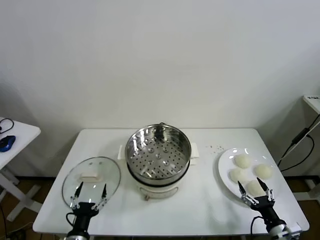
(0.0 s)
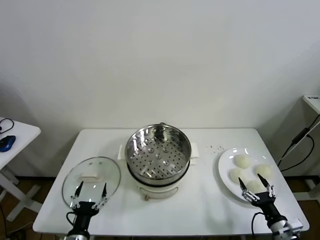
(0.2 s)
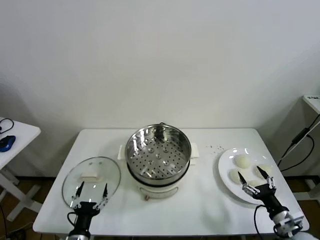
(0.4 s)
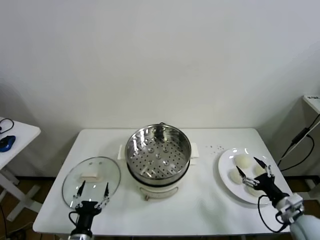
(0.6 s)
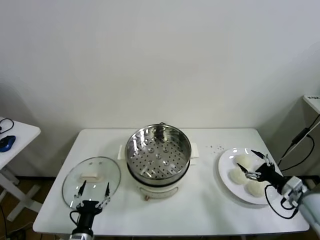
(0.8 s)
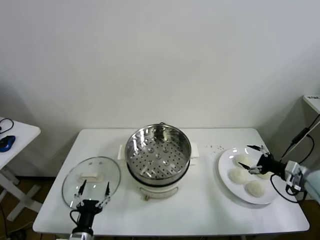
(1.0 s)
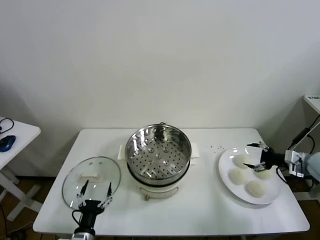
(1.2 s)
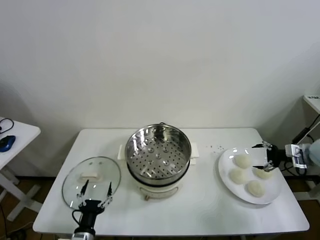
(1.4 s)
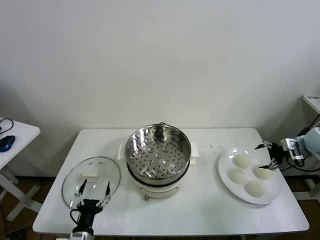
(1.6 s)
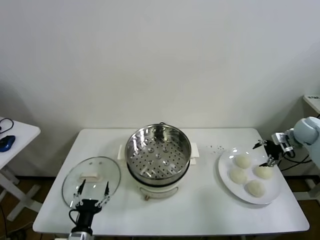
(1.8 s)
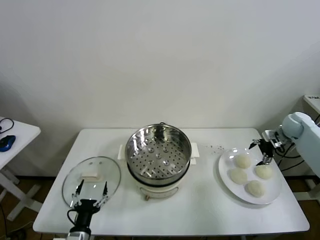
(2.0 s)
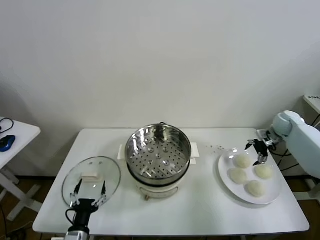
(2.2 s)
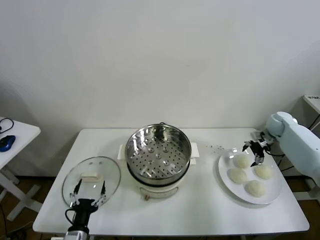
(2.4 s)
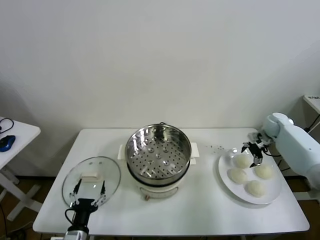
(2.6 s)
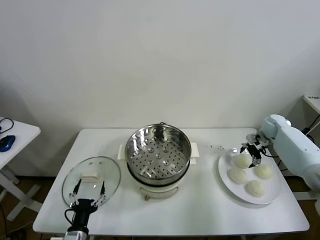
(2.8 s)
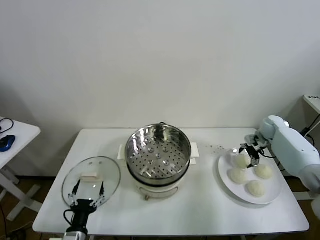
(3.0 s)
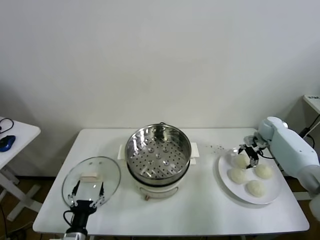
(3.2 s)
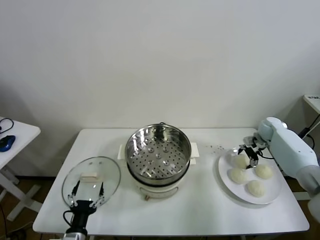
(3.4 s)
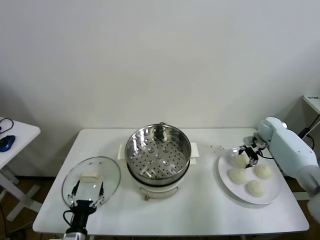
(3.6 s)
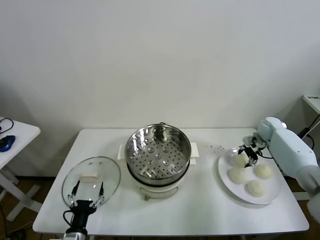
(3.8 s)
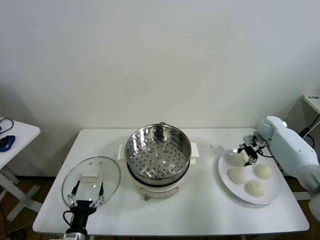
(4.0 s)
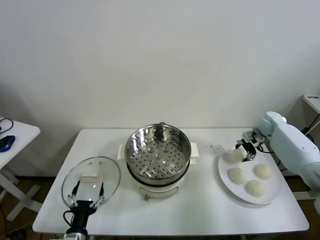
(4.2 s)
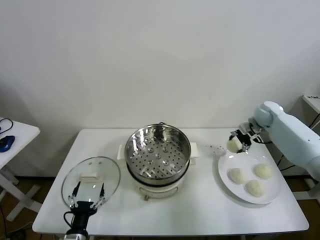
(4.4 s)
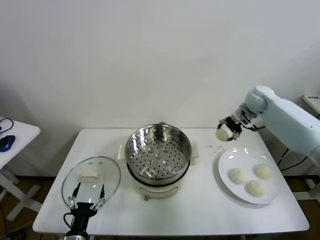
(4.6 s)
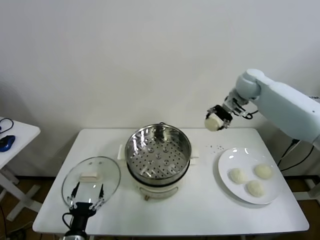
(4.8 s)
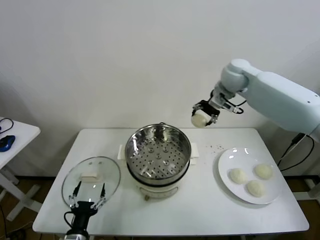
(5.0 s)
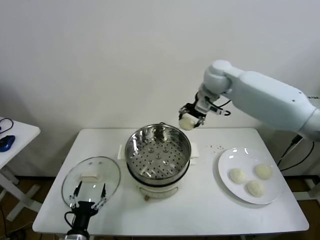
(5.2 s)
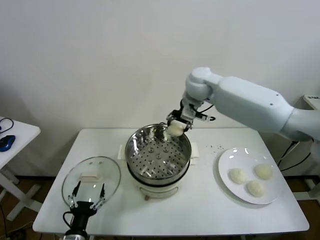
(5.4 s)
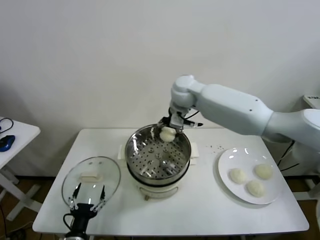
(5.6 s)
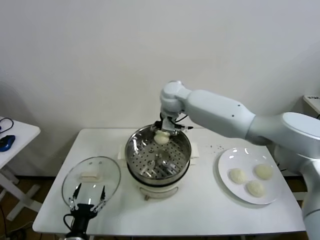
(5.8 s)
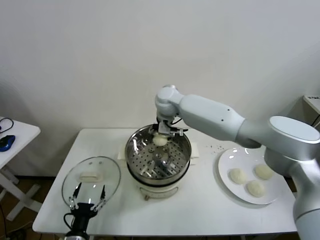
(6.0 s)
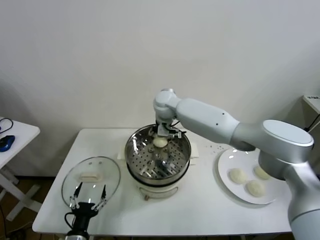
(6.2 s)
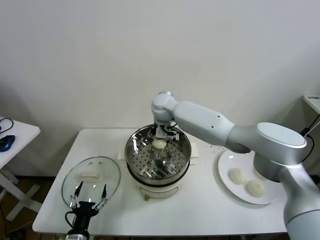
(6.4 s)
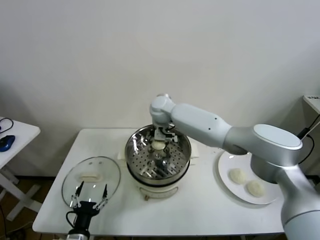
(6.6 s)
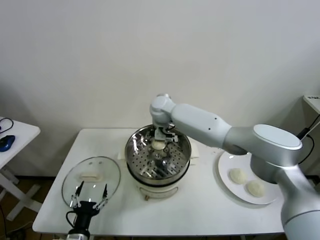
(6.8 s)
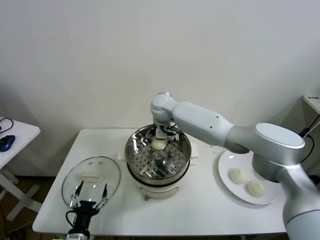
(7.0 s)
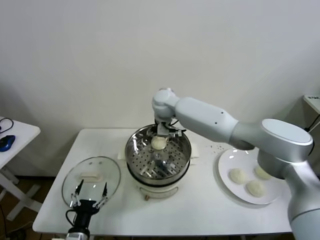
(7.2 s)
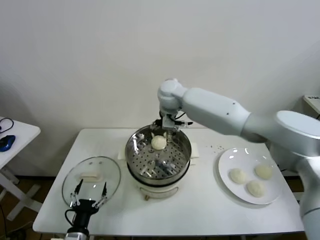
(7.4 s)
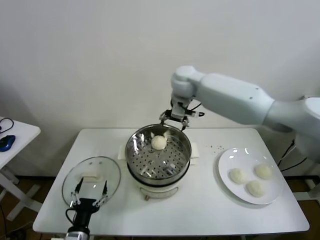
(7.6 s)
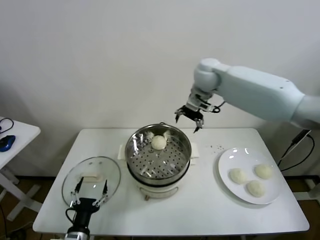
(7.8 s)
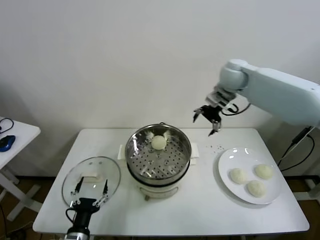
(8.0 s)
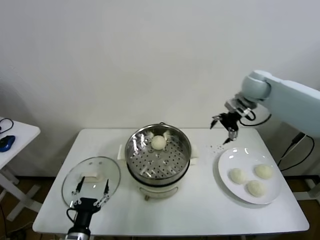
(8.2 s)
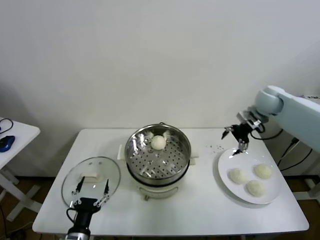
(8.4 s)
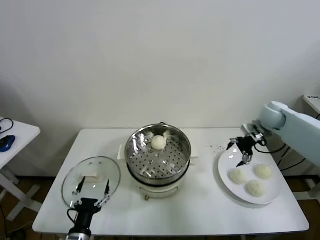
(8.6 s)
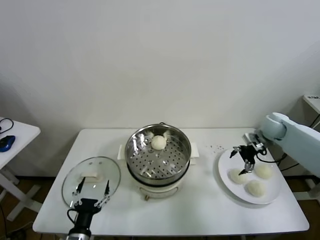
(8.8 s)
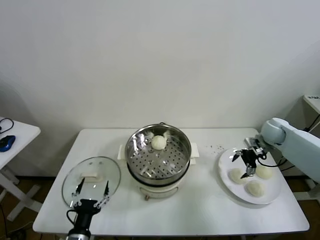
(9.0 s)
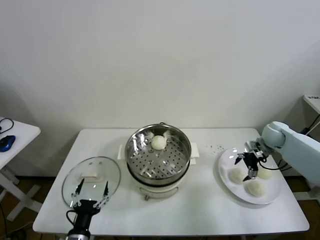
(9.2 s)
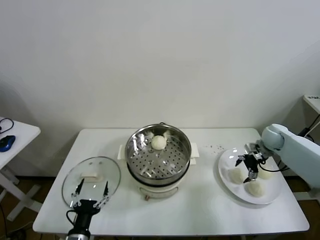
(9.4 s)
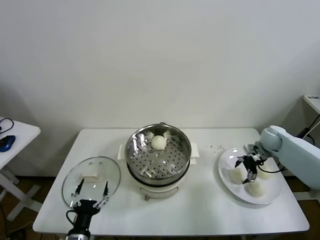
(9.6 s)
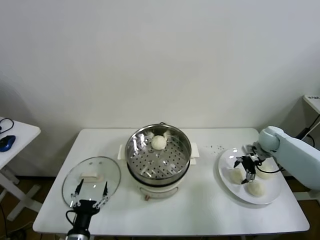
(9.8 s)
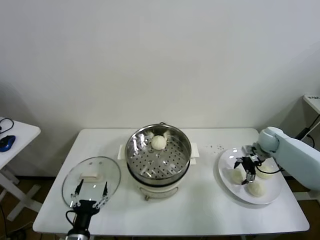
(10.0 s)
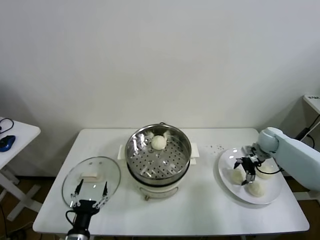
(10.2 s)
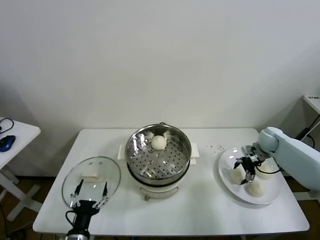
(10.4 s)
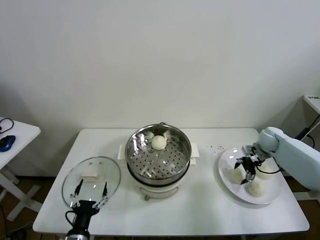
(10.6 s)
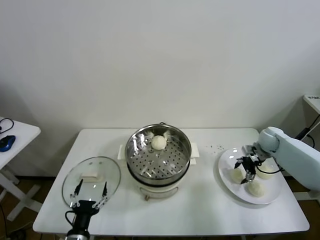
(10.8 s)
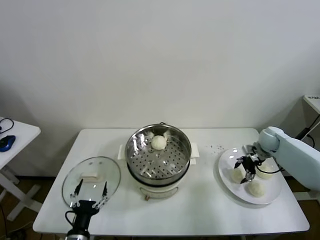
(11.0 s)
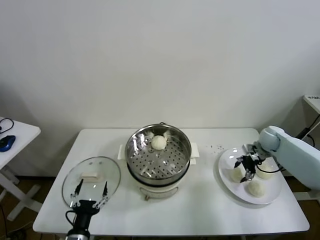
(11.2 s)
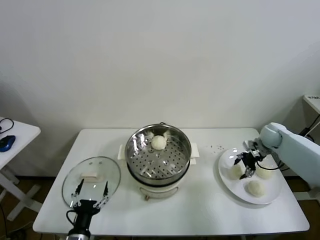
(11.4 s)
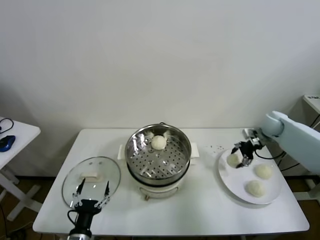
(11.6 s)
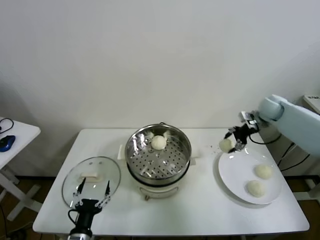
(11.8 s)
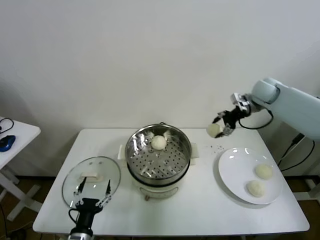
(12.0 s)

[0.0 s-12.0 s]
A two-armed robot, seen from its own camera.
Task of the whole recording: take steamed baozi put them in steamer.
Step, 0.0 to 3.6 s: Grasp the baozi in the plate with right gripper.
Step, 3.8 to 7.2 s: Place the baozi on the steamer with right gripper.
Step, 7.4 to 10.6 s: Grasp the baozi in the plate with right gripper.
1.6 to 3.0 s: The right gripper is displaced forward, to the left and downward by about 15 cm.
3.0 to 4.4 s: The right gripper shifts roughly 15 cm upward and to the left, and closes up.
4.4 to 6.0 s: The right gripper moves to the left, roughly 35 cm.
6.0 to 7.6 s: The right gripper moves upward and to the right, about 15 cm, and opens.
7.6 to 9.0 s: The right gripper travels to the right and downward by some 40 cm.
9.0 to 10.4 s: The right gripper closes up.
10.4 to 12.0 s: The right gripper heads upward, covering some 20 cm, and closes.

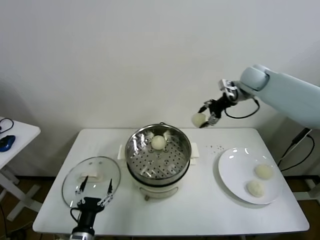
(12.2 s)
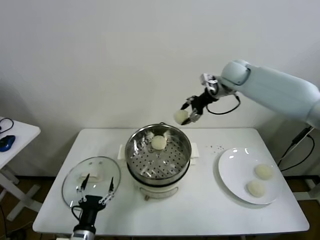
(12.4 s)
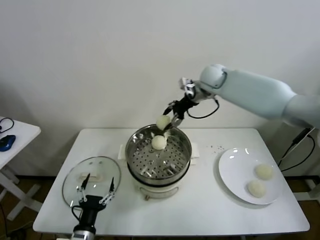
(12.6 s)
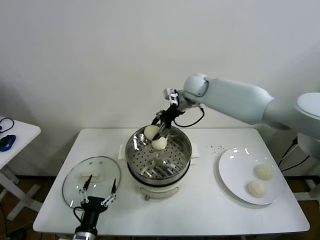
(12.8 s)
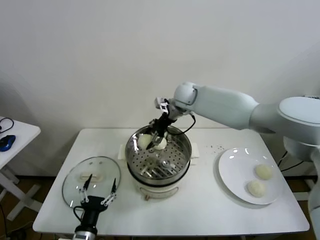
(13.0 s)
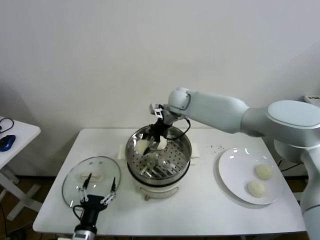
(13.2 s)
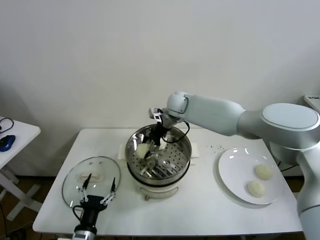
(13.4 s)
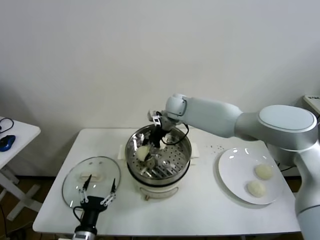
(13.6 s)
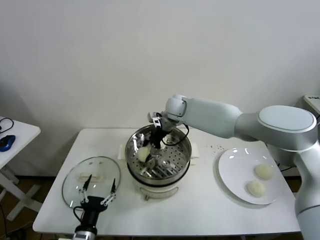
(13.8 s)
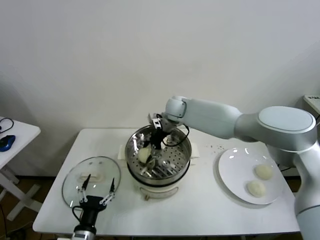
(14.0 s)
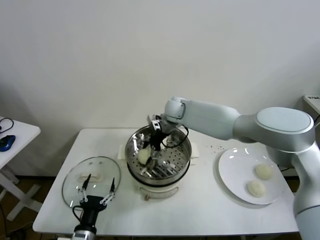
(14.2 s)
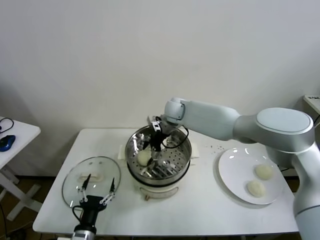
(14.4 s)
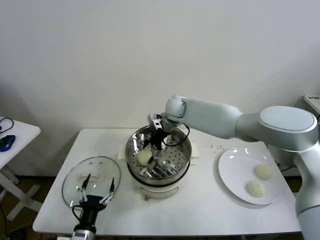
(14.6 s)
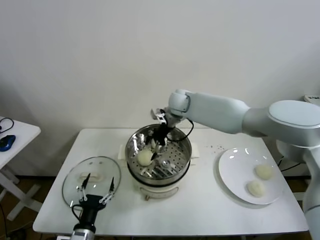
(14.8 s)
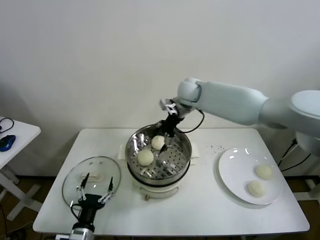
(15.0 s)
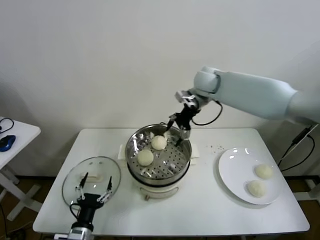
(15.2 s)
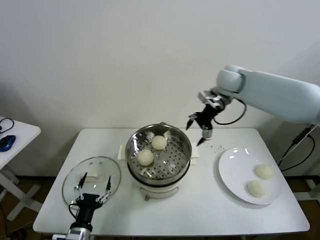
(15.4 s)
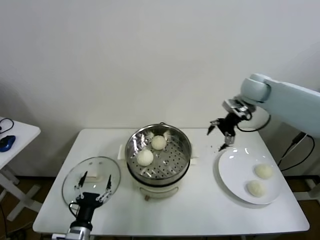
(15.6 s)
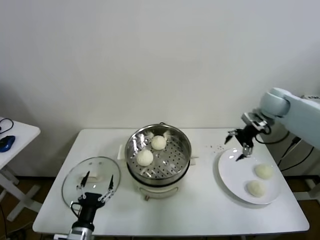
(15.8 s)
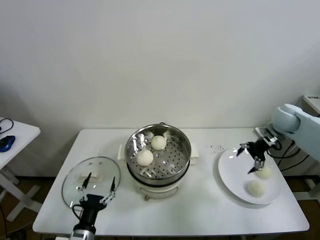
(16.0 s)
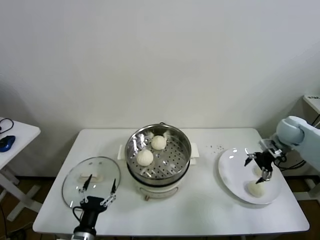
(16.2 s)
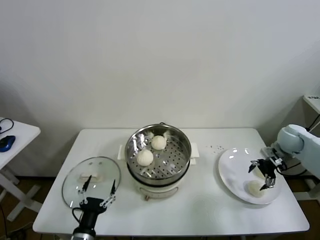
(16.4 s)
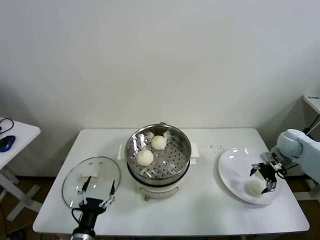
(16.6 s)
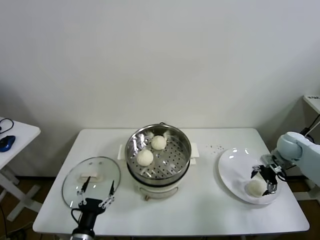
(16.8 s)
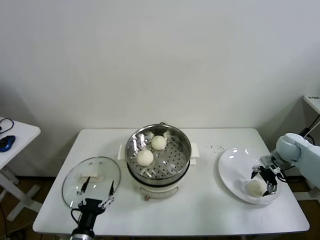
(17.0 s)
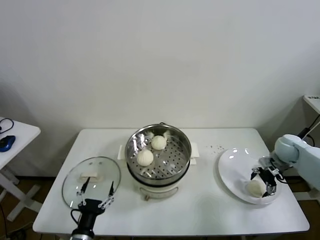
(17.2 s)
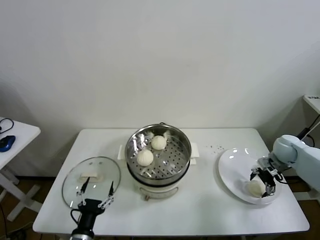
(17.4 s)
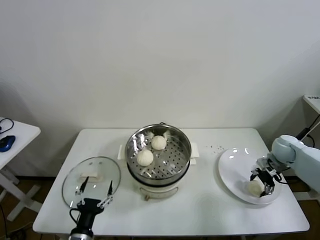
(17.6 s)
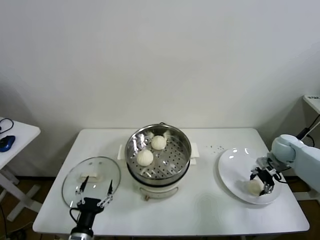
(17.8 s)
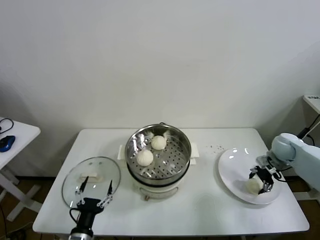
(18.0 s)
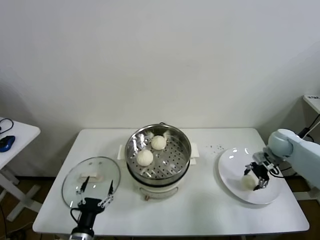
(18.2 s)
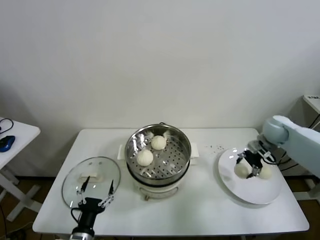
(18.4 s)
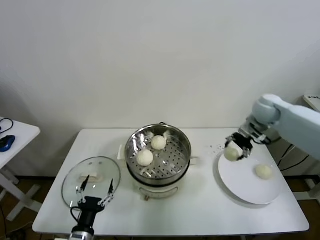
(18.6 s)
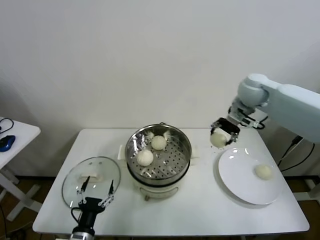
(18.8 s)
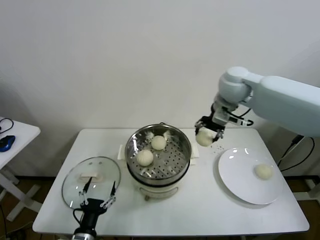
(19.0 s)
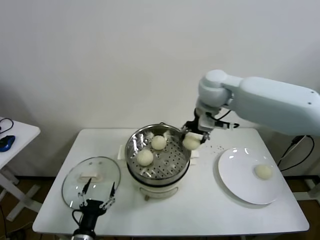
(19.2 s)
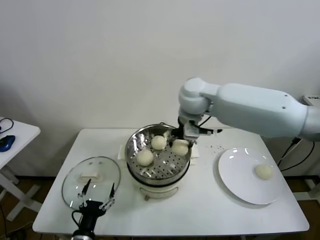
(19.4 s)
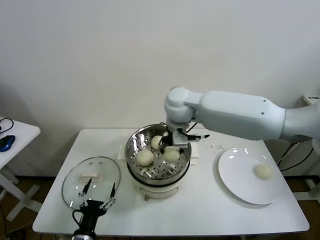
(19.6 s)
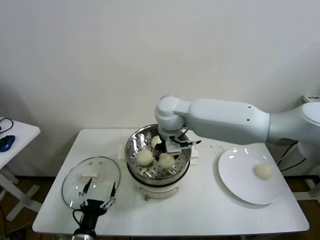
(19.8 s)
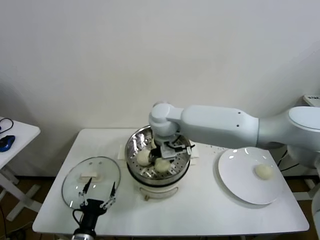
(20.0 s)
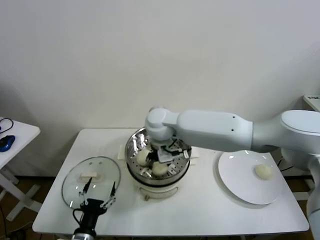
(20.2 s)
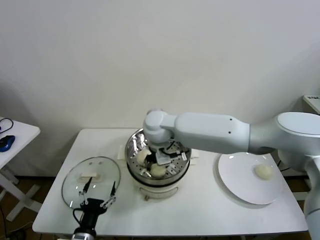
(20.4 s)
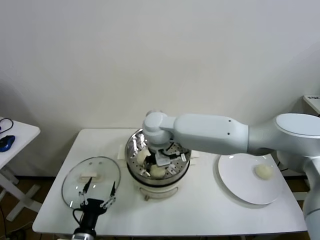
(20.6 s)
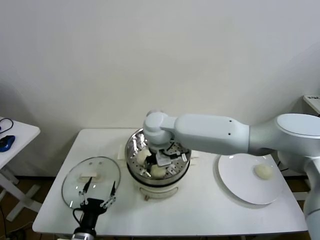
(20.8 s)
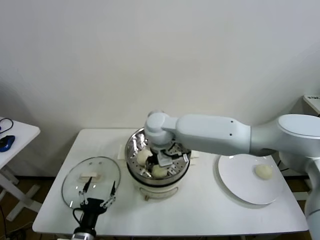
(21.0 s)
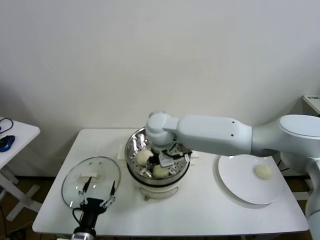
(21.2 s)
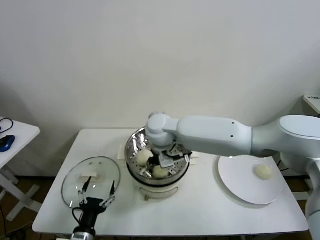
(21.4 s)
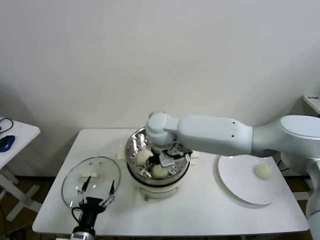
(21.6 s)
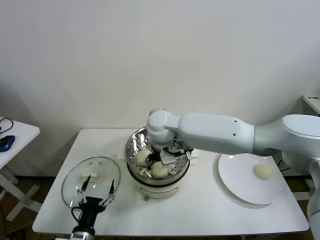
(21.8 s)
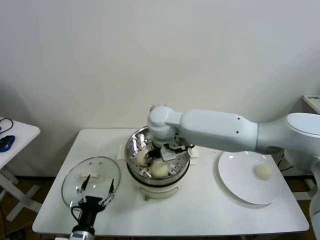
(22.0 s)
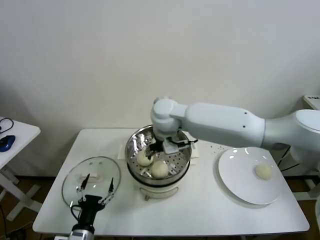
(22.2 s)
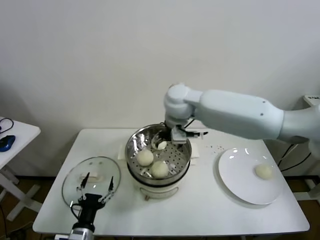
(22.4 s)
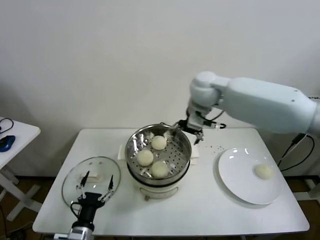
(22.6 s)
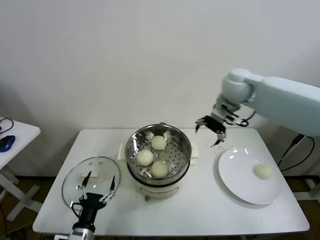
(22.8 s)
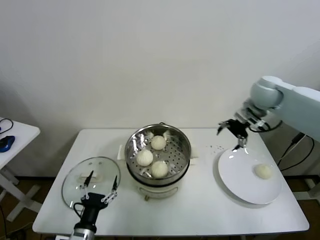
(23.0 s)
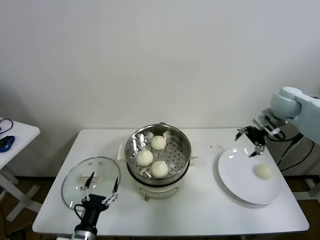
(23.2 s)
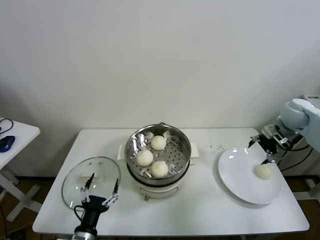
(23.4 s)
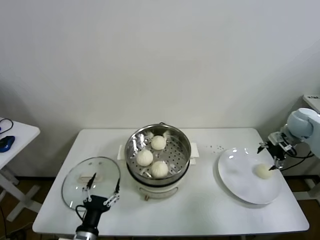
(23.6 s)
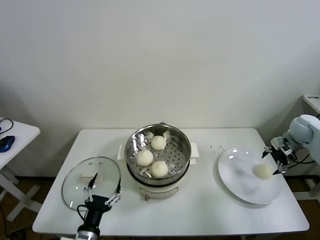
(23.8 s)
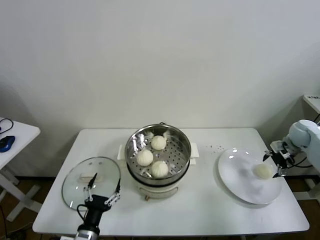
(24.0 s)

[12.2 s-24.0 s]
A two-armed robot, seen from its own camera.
Task of the whole recording: take steamed baozi put them in steamer.
Step, 12.2 to 14.8 s: Place the baozi on the steamer with right gripper.
Step, 15.0 to 17.6 s: Grasp the baozi in the plate with right gripper.
Step, 18.0 to 22.0 s: Place the baozi on the steamer with right gripper.
12.2 to 13.6 s: The right gripper is displaced to the left and downward by about 25 cm.
13.6 to 15.2 s: The right gripper is displaced to the right and upward by approximately 15 cm, and opens its fingers.
15.2 to 16.6 s: The right gripper moves to the right and downward, roughly 35 cm.
16.6 to 18.2 s: The right gripper closes its fingers.
18.2 to 19.6 s: The right gripper shifts about 40 cm to the left and upward.
19.6 to 21.0 s: The right gripper goes approximately 10 cm downward and to the left.
21.0 to 22.6 s: The right gripper goes roughly 20 cm to the right and upward, and opens its fingers.
22.6 to 24.0 s: The right gripper moves to the right and downward, some 40 cm.
